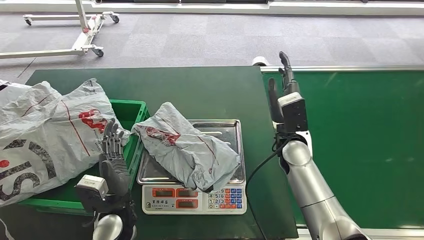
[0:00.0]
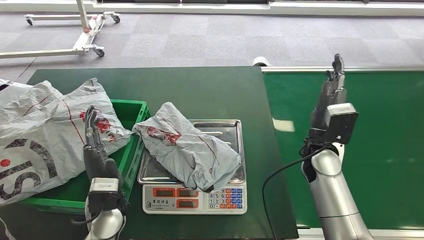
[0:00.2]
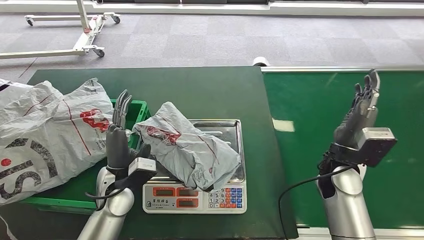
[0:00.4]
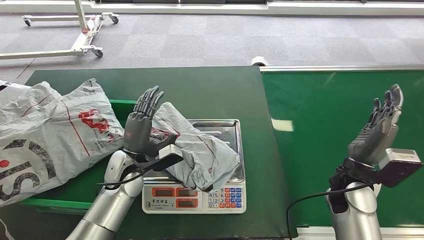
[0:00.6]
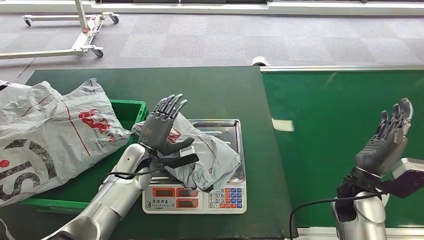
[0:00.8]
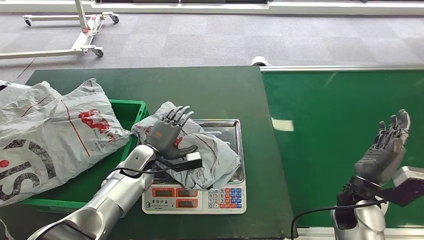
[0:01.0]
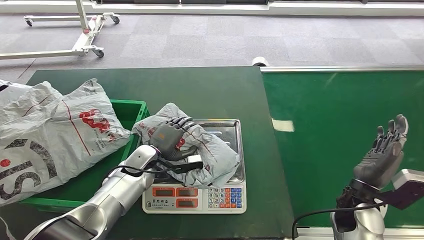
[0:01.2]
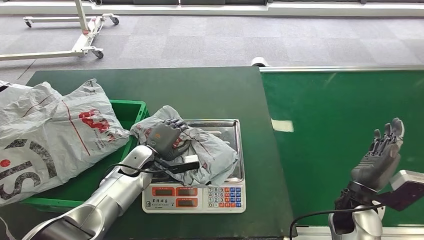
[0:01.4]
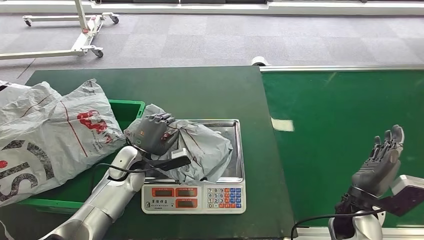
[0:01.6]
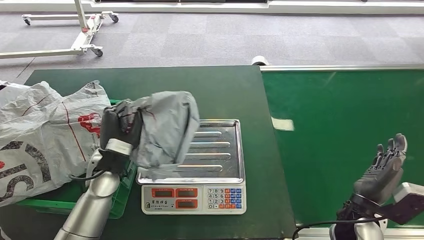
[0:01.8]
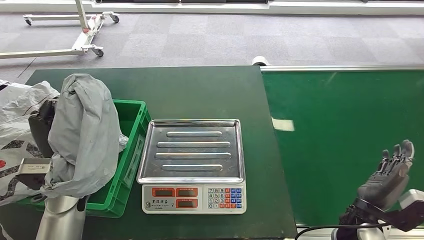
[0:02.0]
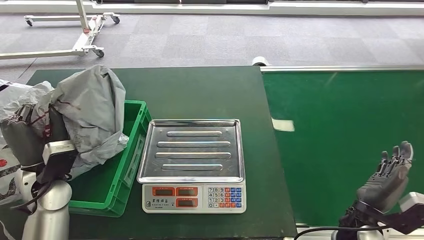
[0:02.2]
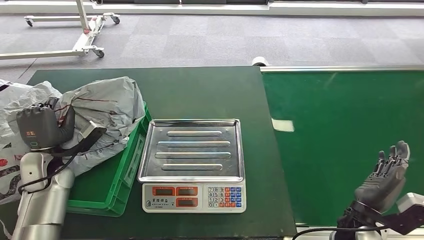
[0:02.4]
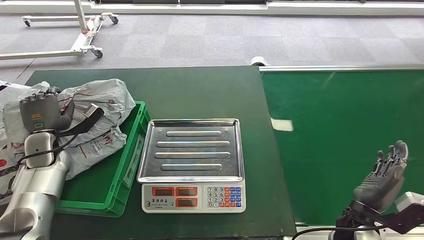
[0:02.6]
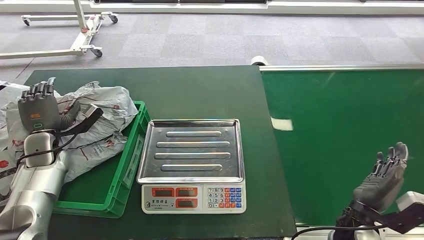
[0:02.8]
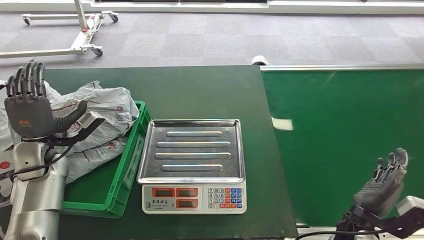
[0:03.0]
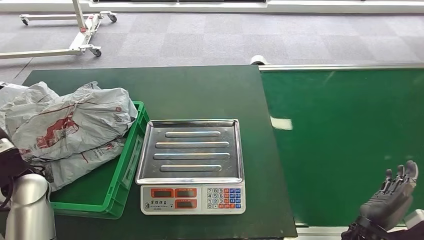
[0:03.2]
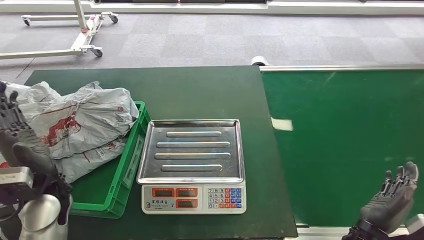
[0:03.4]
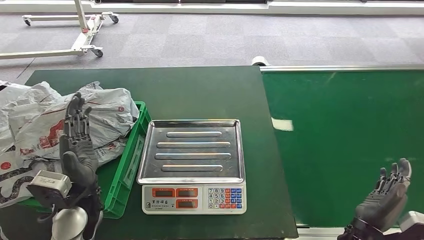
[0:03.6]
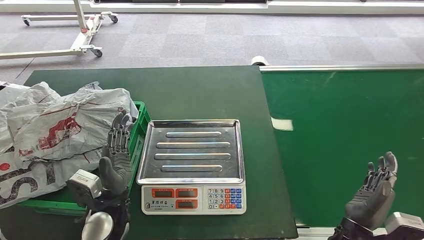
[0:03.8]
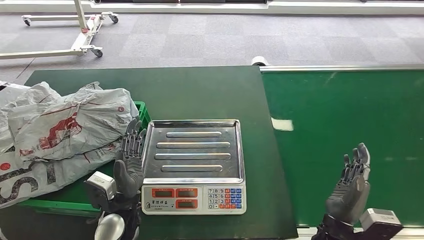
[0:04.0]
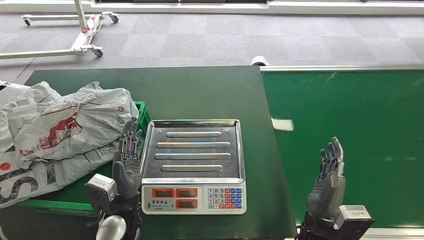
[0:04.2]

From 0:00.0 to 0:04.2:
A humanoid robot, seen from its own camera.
Step, from 0:01.4 to 0:02.4: Pick up the package from the inbound machine.
Step, from 0:02.8 to 0:04.2: Place the package into the parcel locker.
From 0:02.8 to 0:04.2: The right hand moves to the left, about 10 cm. Meanwhile the left hand shifts about 30 cm to the right and backward.
